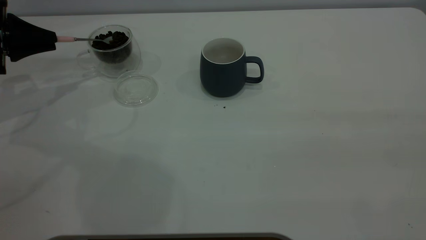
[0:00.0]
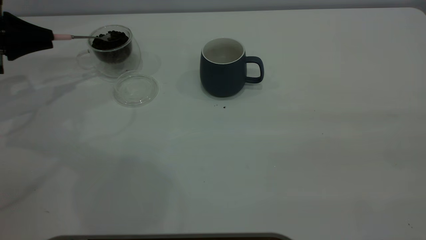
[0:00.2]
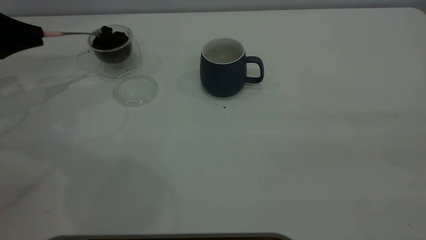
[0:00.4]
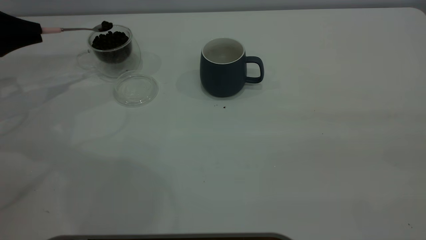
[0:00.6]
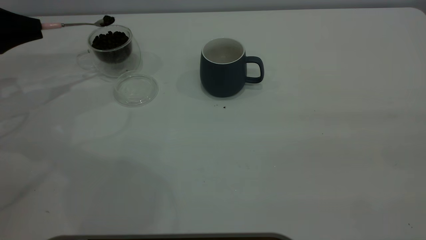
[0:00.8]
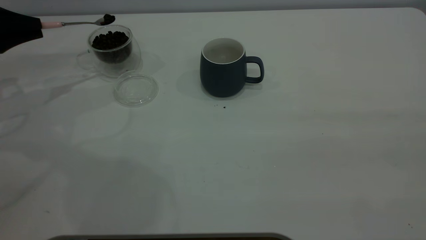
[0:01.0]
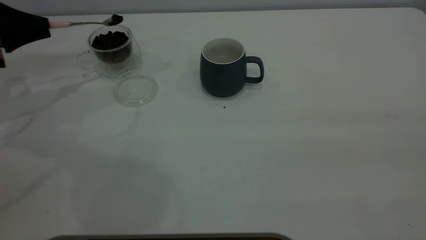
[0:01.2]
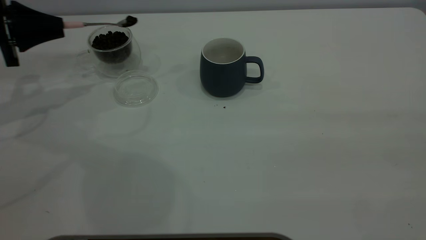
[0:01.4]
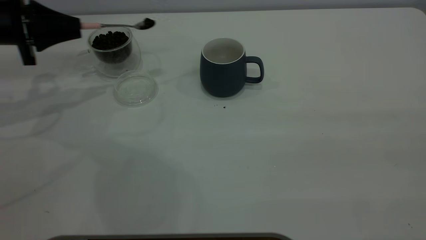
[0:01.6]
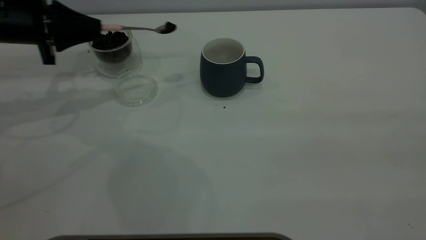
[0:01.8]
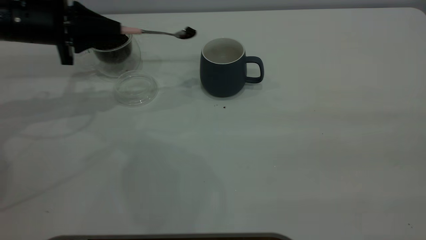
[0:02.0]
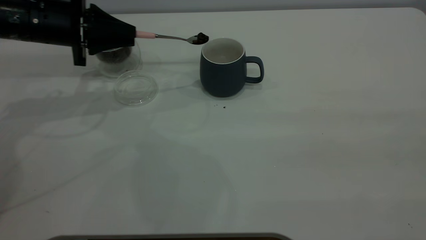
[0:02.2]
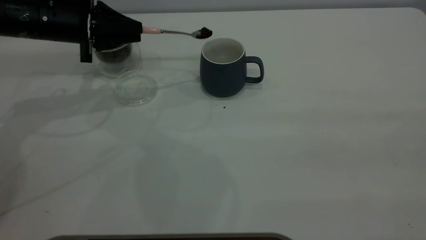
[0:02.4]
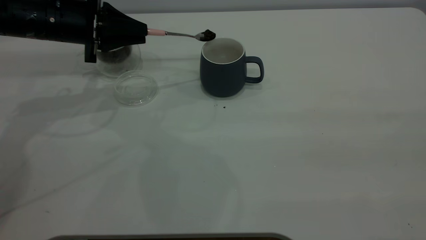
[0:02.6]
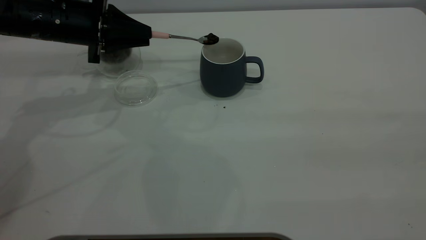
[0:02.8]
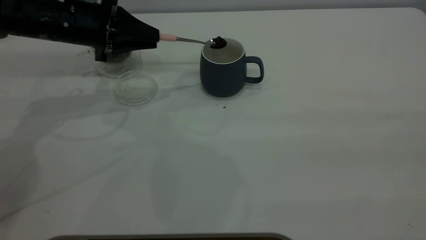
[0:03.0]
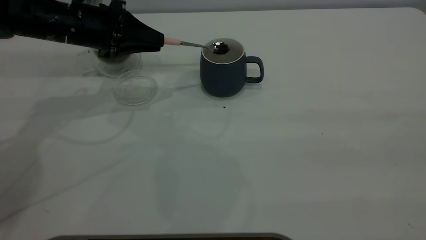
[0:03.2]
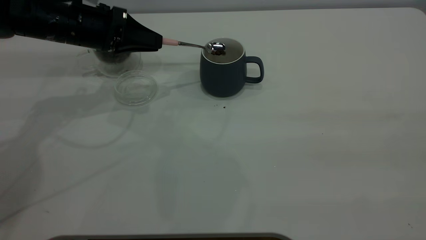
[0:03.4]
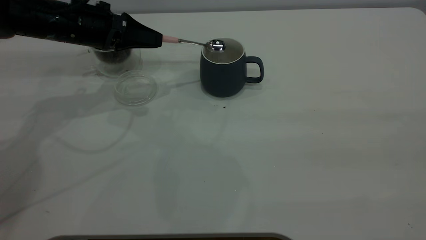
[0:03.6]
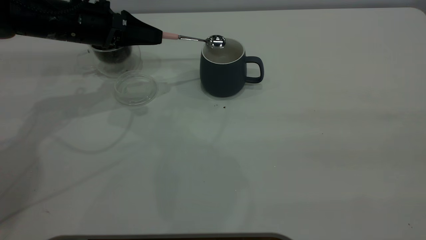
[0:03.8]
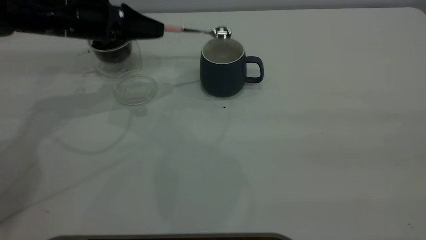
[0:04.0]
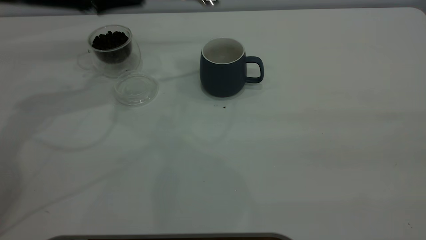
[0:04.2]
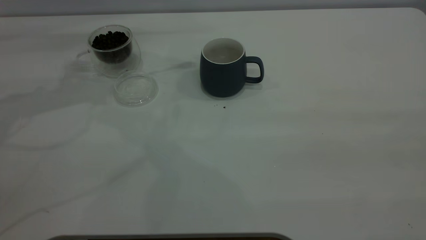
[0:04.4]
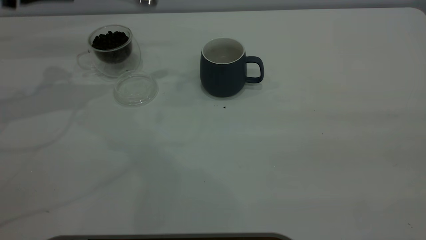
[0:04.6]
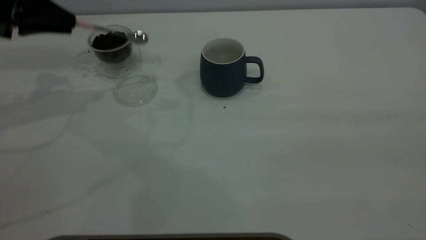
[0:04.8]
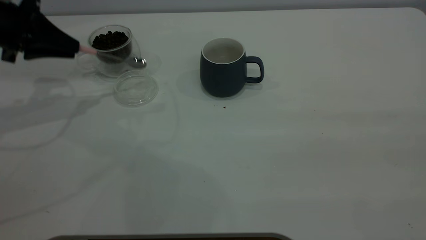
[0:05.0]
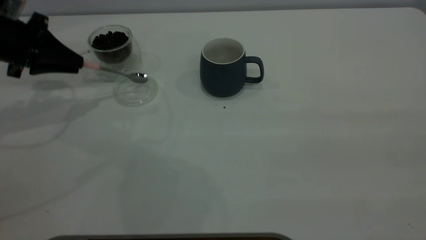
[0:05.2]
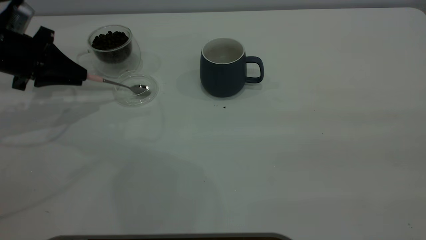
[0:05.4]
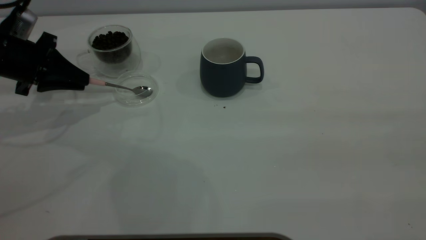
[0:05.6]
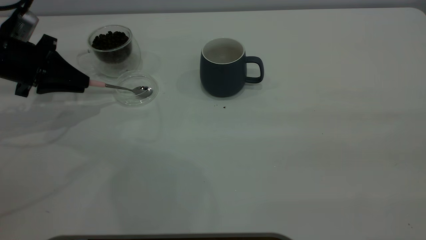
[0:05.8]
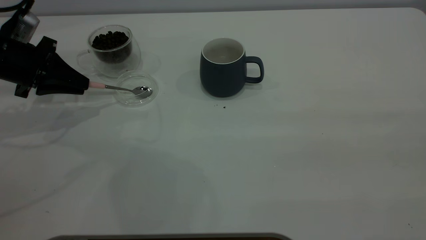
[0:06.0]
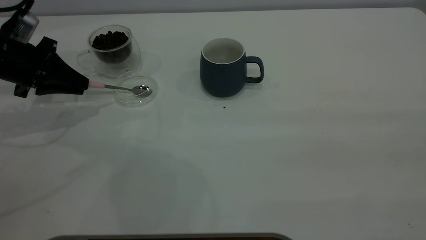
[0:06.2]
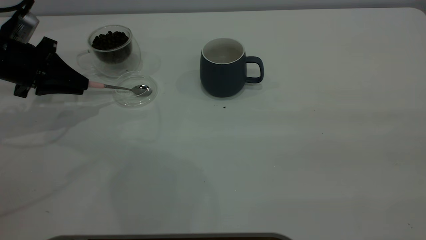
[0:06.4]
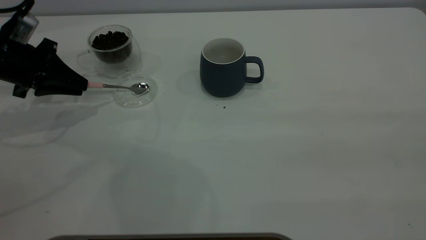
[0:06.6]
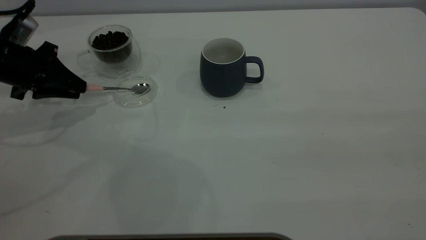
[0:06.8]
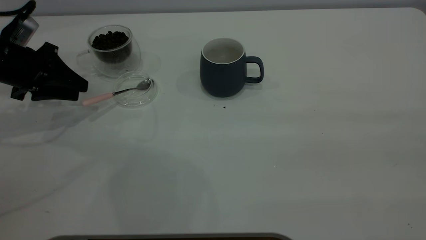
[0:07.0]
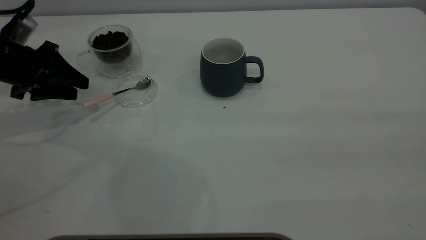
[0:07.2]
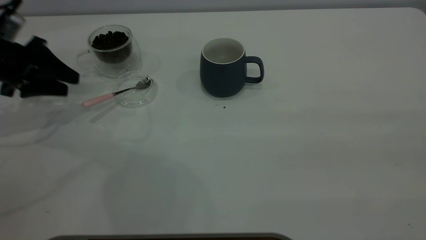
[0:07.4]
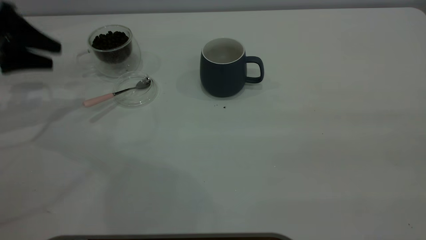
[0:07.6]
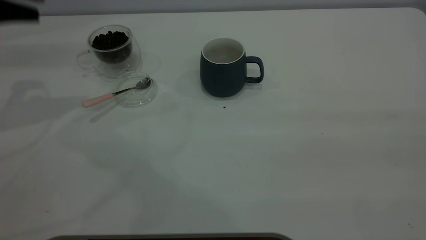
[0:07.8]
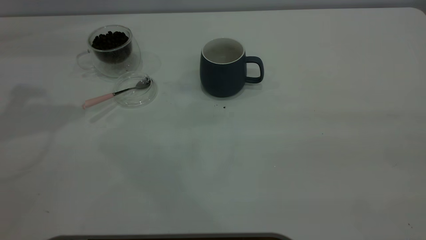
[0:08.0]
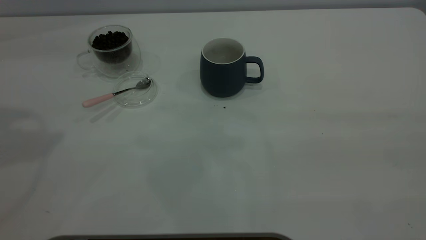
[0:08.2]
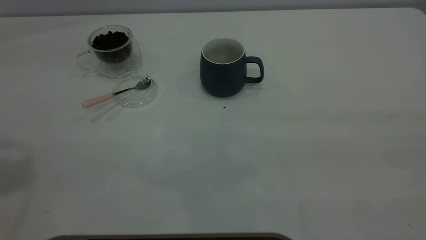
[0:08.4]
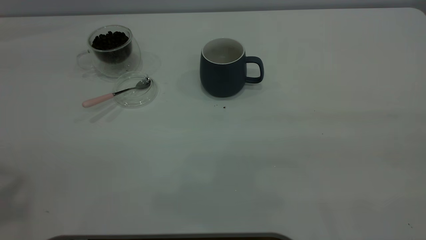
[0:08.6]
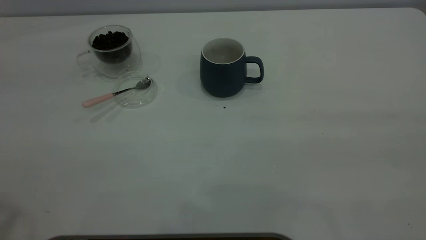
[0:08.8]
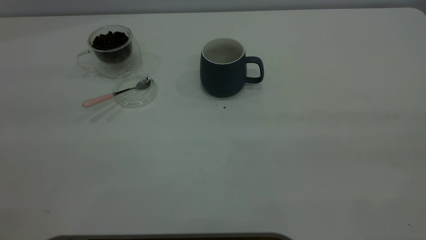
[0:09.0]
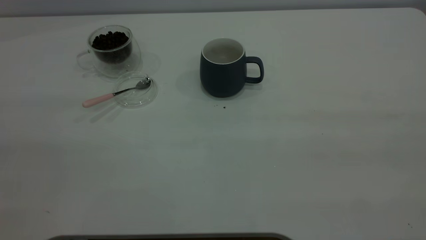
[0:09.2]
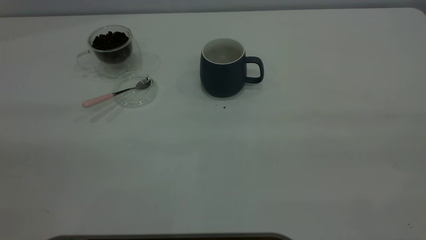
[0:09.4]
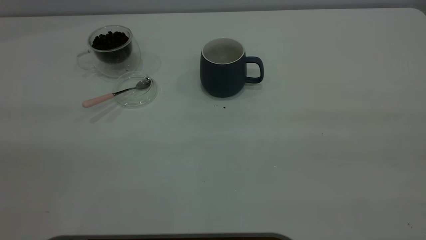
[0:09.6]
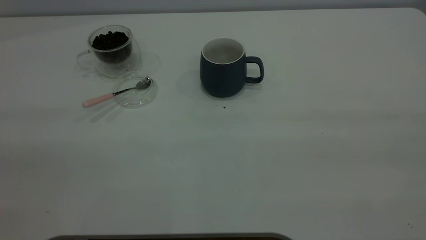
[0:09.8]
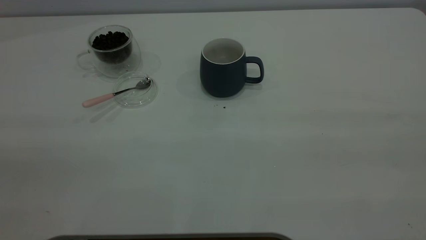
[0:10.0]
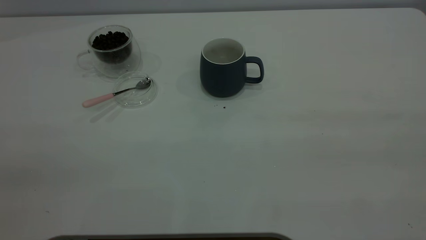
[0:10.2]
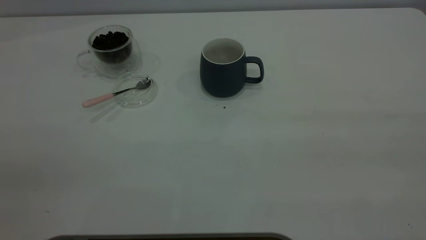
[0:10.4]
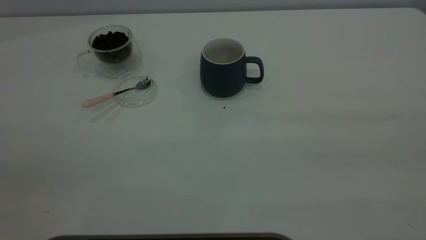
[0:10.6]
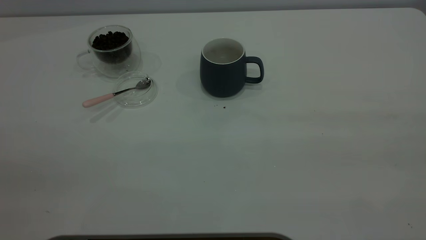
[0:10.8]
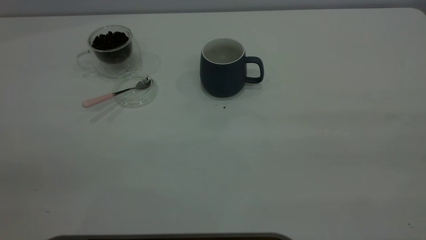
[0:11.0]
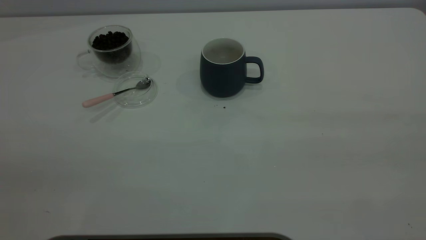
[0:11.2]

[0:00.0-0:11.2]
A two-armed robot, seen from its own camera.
Task of the whole recording: the right gripper place the grey cup in the center of the table, the left gripper take the pink spoon from the cup lid and scoop out the coffee beans from the coffee cup and put them into the grey cup, the left gripper put the spoon back into the cup lid.
Step, 0:00.0 to 0:04.0: Scoop a spoonful of beans into the cup.
Step, 0:04.2 to 0:07.6: Place the spoon back in its original place.
0:00.0 to 0:01.6: The left gripper heads to the right, covering roughly 5 cm.
0:01.6 to 0:03.2: The left gripper heads to the right, covering some 10 cm.
0:03.2 to 0:04.8: The left gripper moves to the left and upward, roughly 15 cm.
0:04.8 to 0:06.4: The left gripper goes roughly 10 cm downward.
0:06.4 to 0:08.0: The left gripper travels upward by about 25 cm, and opens.
